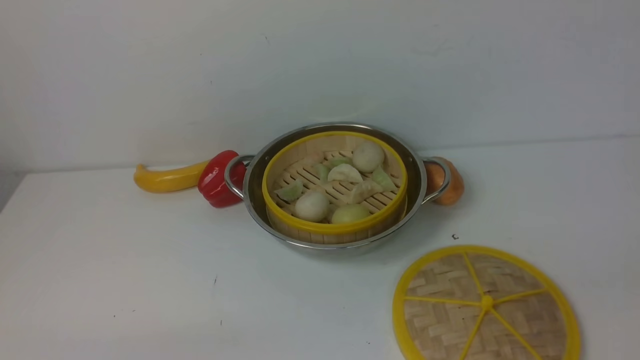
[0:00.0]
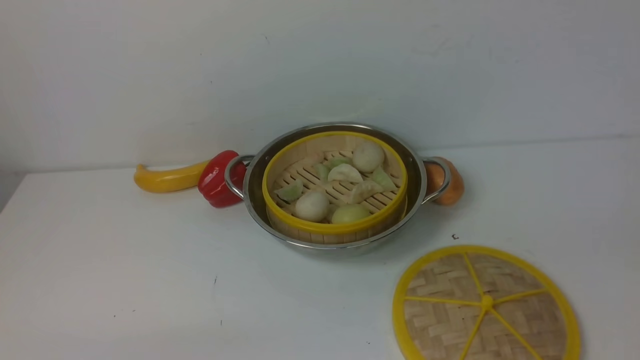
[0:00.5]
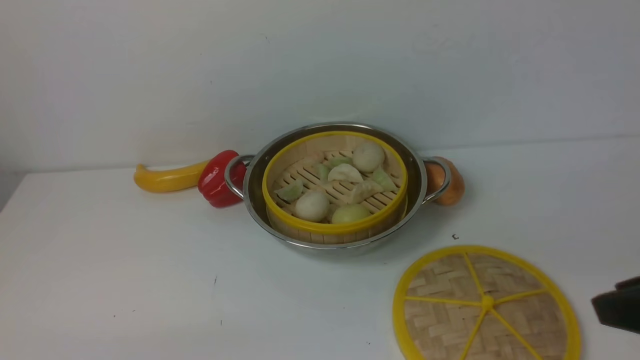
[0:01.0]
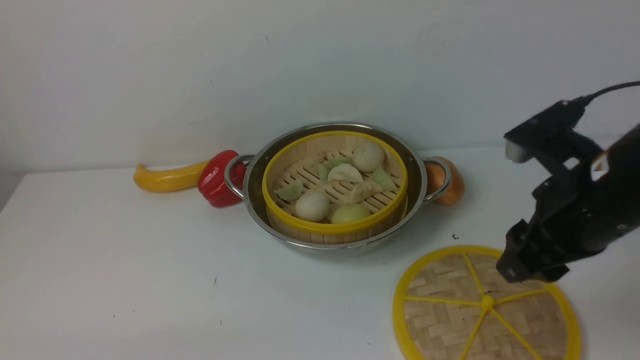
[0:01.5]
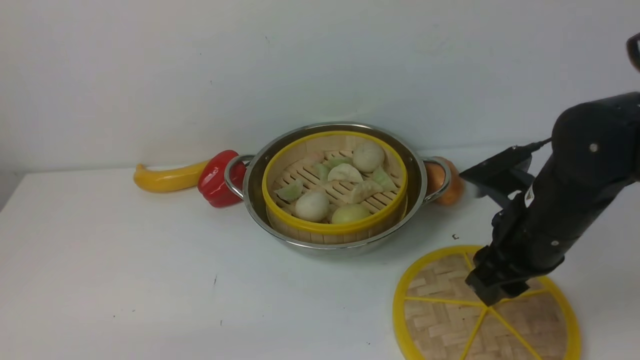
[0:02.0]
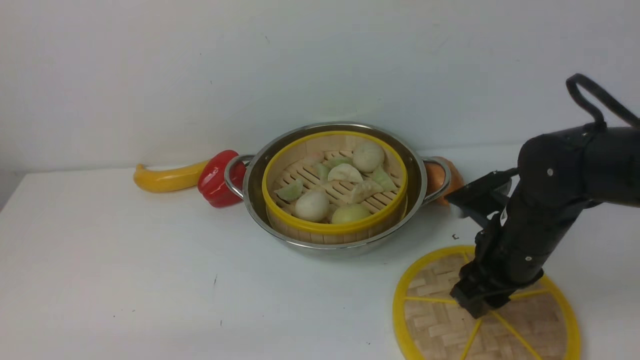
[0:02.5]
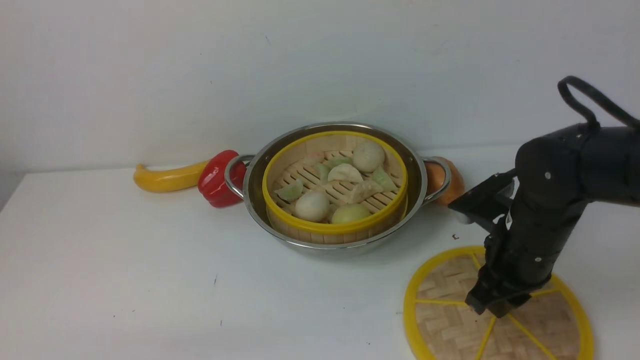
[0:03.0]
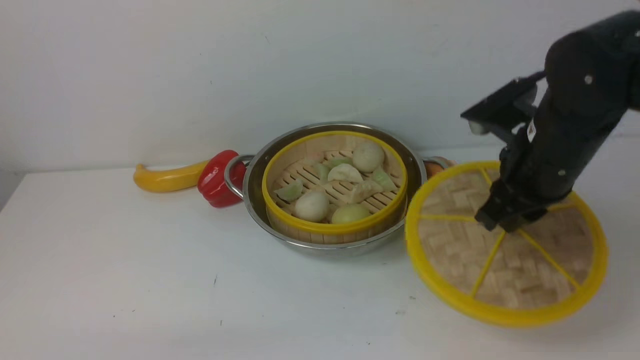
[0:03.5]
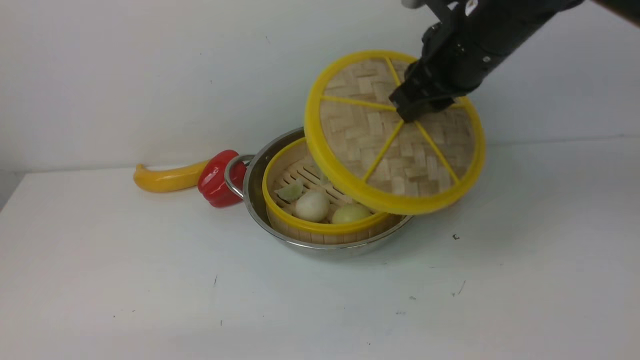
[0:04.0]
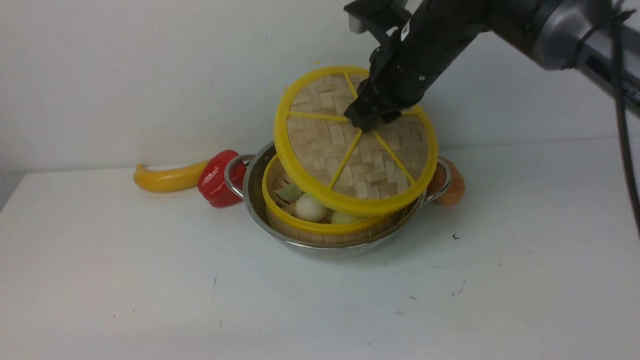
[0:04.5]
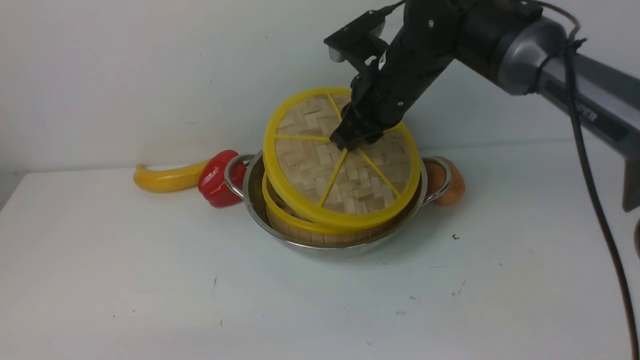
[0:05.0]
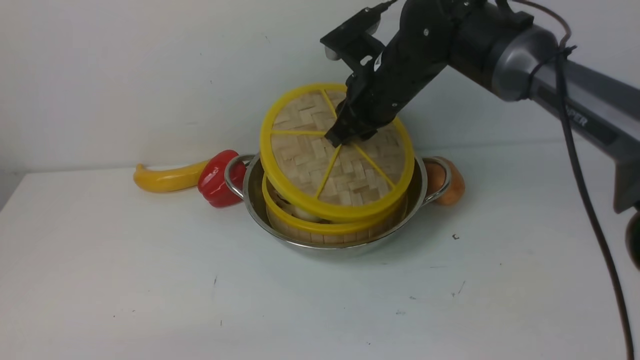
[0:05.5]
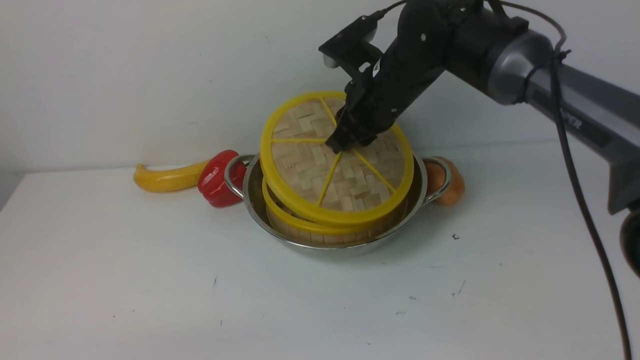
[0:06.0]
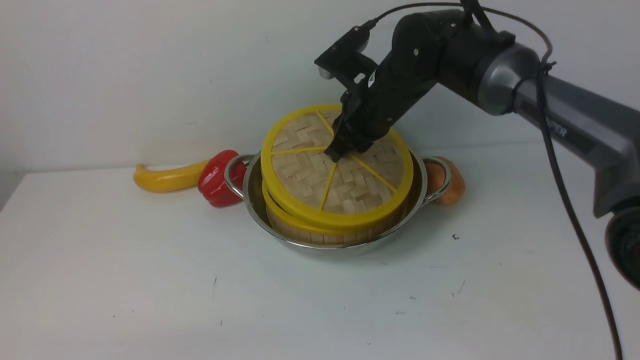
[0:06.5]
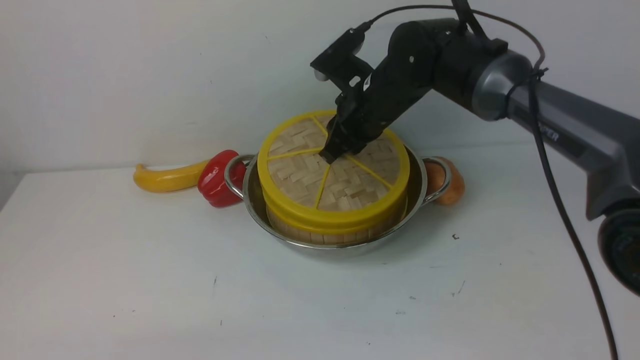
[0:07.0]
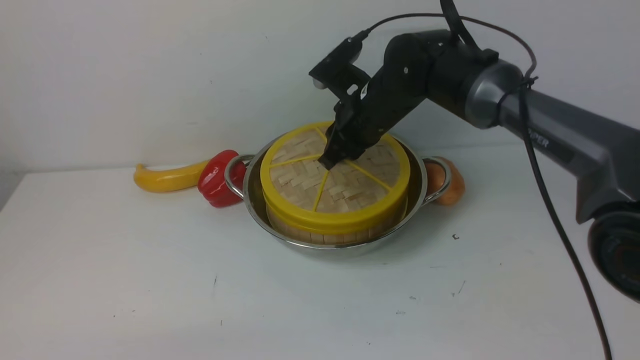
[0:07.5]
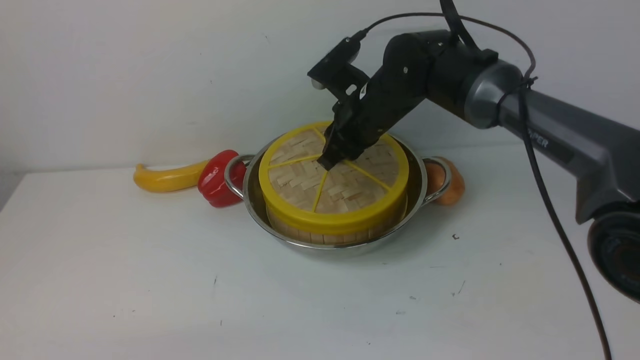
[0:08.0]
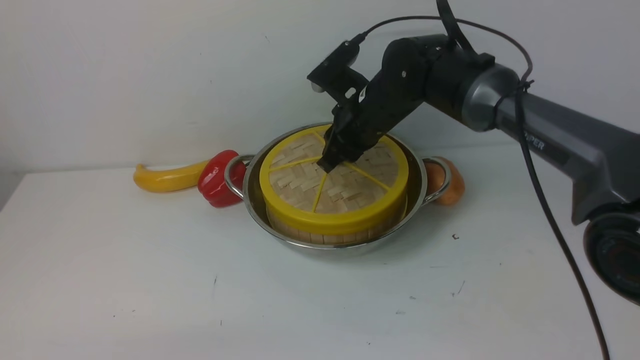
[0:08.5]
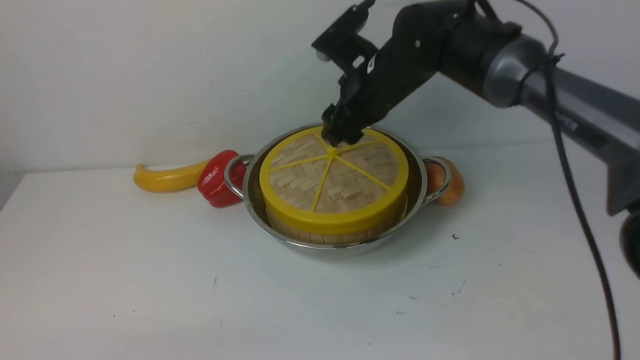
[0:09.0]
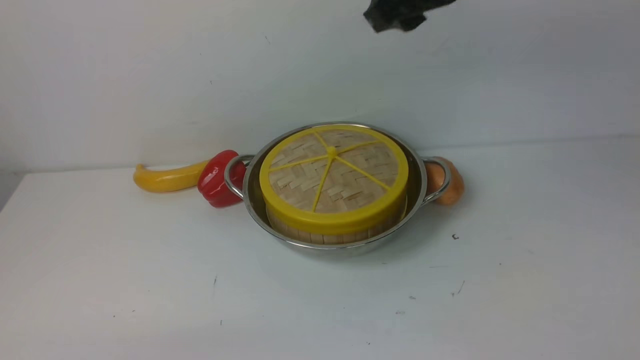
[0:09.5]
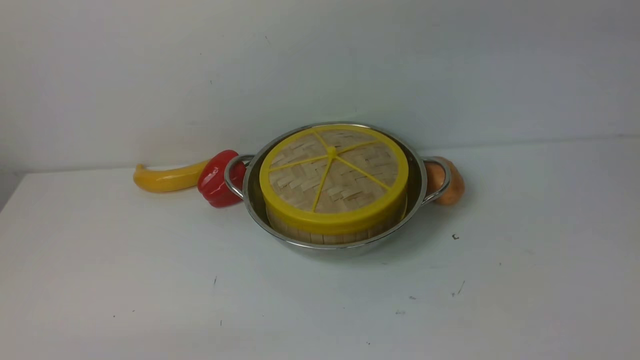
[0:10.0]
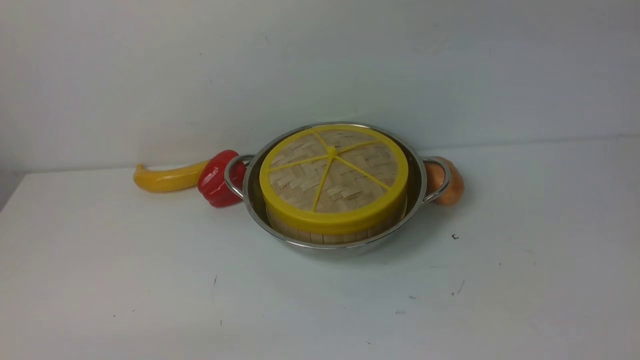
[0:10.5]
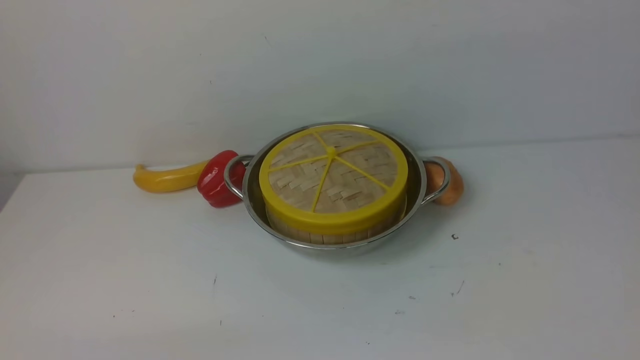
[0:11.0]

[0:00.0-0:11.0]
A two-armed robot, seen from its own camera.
Task of the whole recording: place the steamer in the pot on the white table, and put the lid on the steamer.
Step, 0:00.0 to 0:03.5: use the right arm to lift the lid of the steamer.
Step, 0:04.0 to 0:09.5: use the right arm to place the steamer lid on the steamer.
0:00.0 to 0:02.0: The right gripper shifts approximately 30 cm forward and to the left.
0:02.0 to 0:03.5: The right gripper closes its fingers.
0:03.5 to 0:05.5: The right gripper goes some 15 cm to the left and forward.
0:05.5 to 0:07.5: The grippers make only small movements.
0:07.5 to 0:09.0: The right gripper opens.
0:09.0 to 0:11.0: The right gripper heads backward, upward and to the right, covering roughly 40 cm, and closes its fingers.

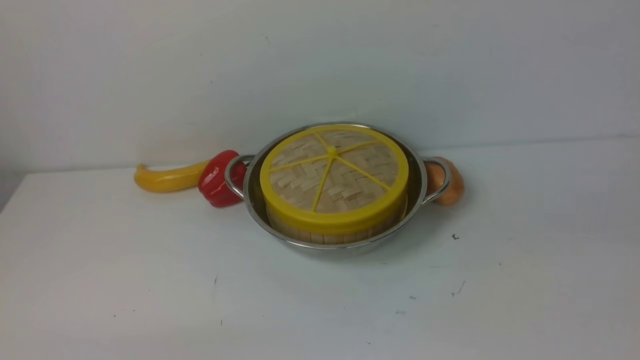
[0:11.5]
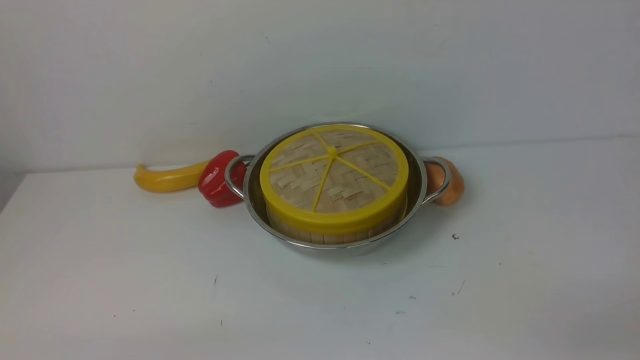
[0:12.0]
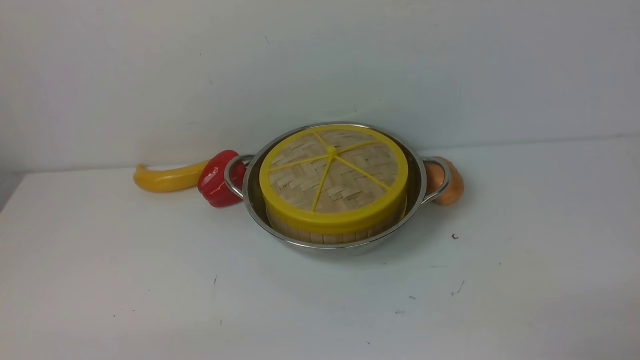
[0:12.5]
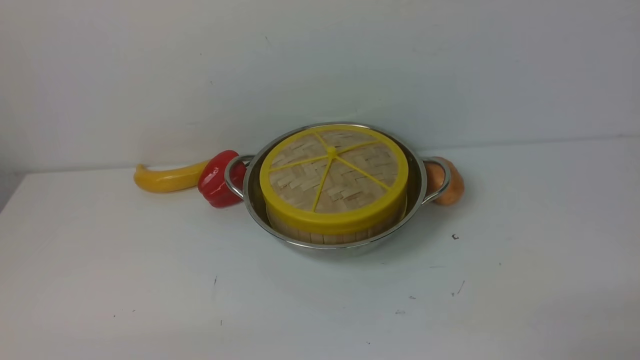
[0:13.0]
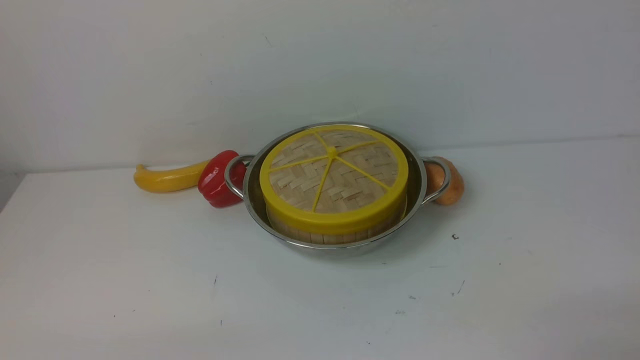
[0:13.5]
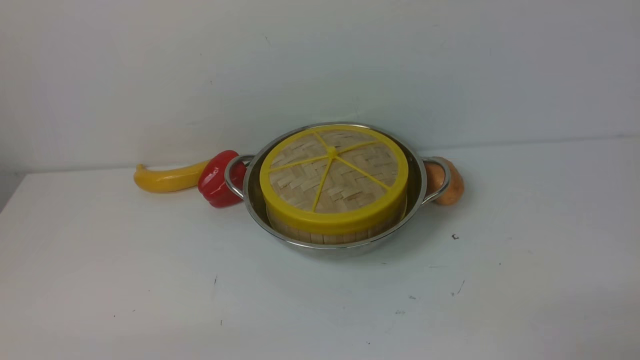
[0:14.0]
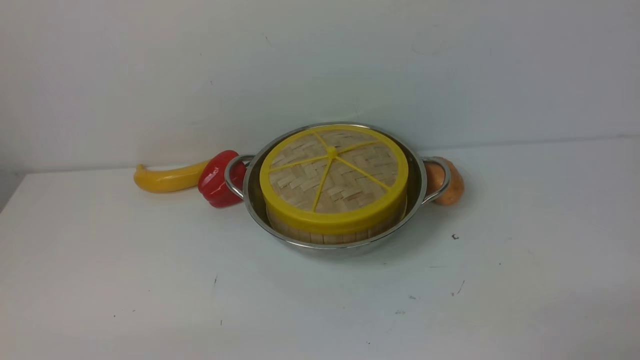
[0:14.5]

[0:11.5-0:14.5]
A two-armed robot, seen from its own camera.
Task of the whole recording: place the steamer in the pot on the white table, and put the lid on the steamer.
0:13.0 to 0:14.5: Both grippers stay about where they are.
